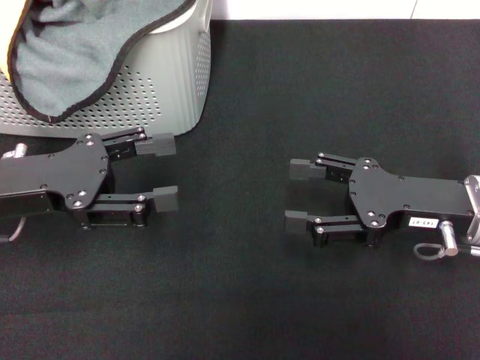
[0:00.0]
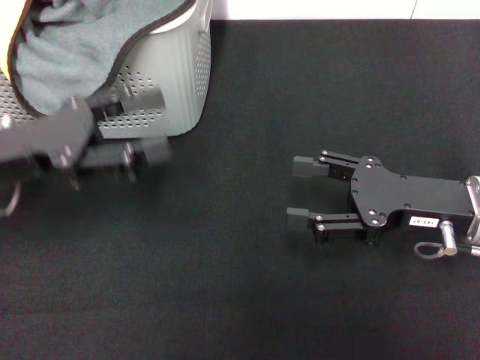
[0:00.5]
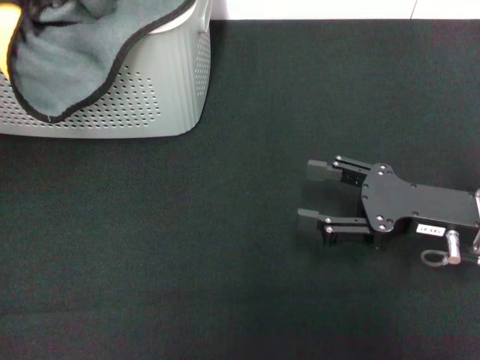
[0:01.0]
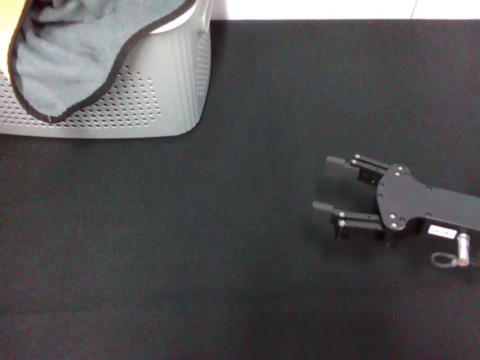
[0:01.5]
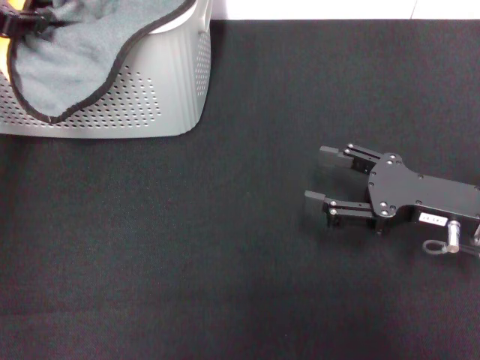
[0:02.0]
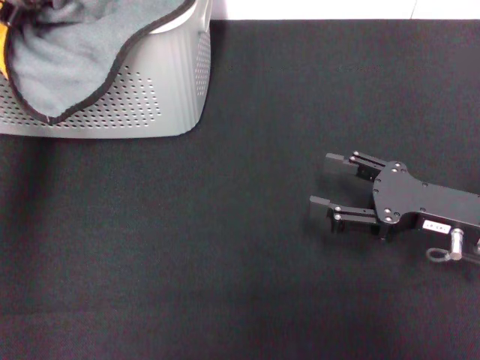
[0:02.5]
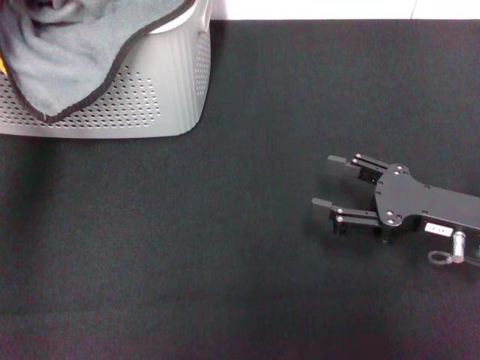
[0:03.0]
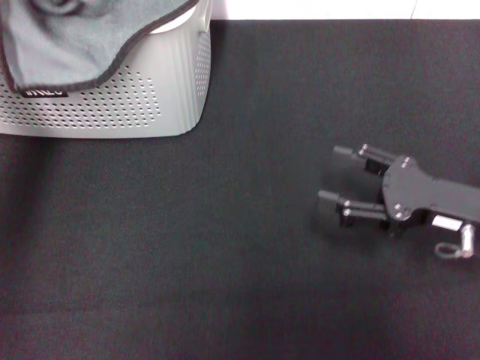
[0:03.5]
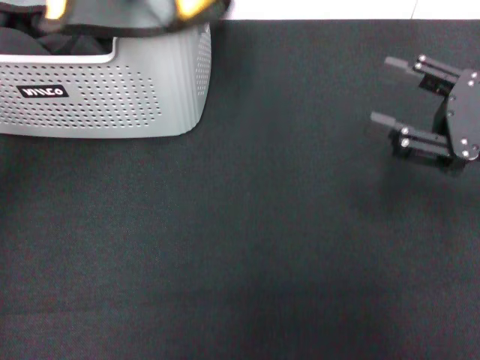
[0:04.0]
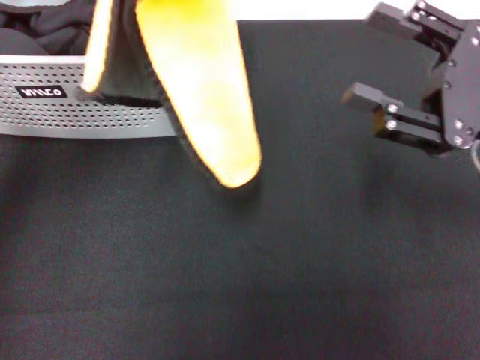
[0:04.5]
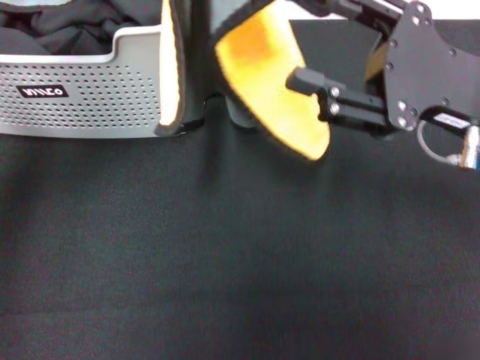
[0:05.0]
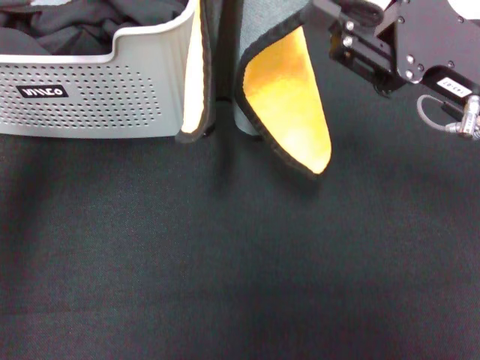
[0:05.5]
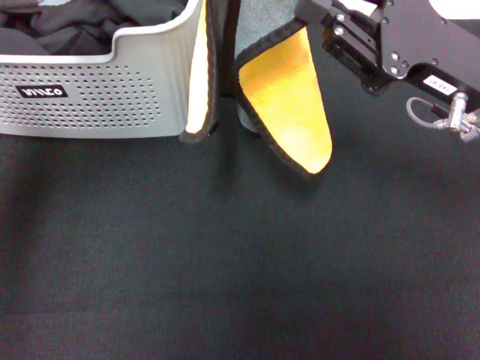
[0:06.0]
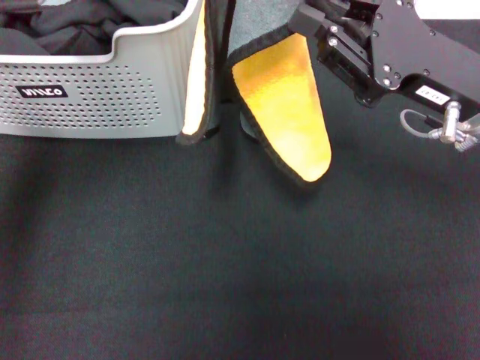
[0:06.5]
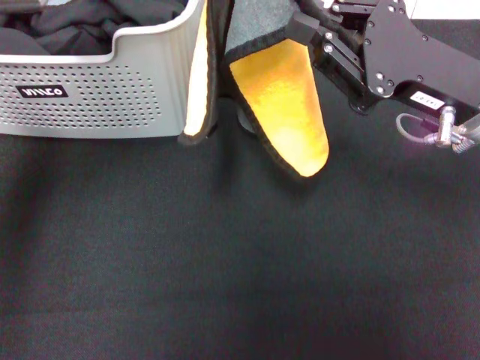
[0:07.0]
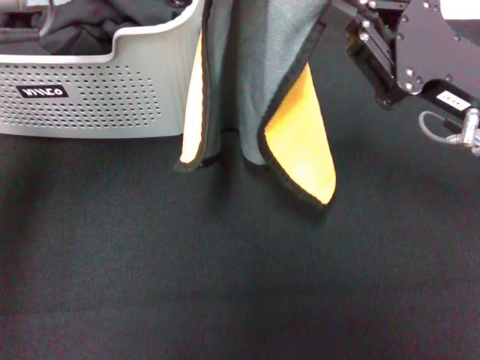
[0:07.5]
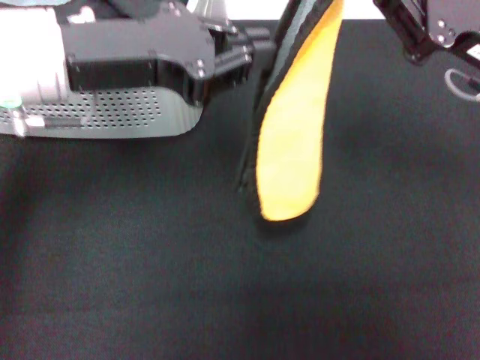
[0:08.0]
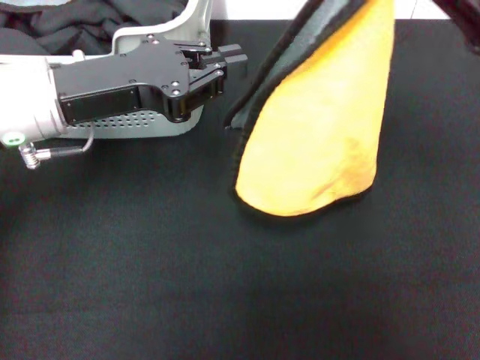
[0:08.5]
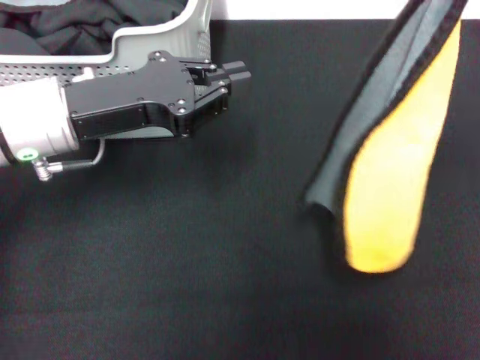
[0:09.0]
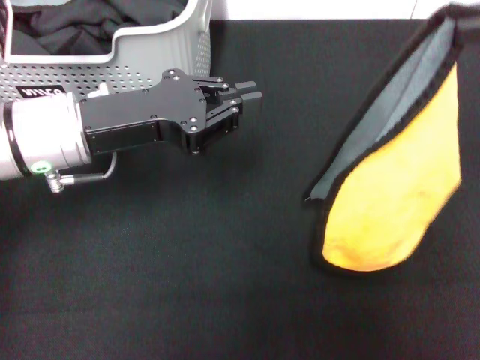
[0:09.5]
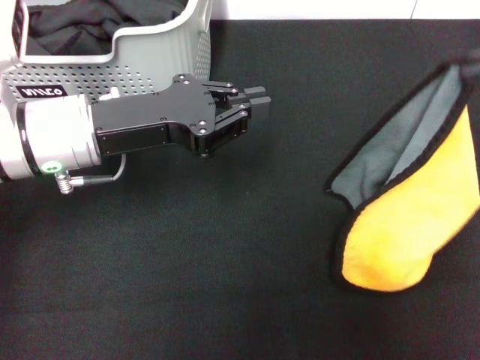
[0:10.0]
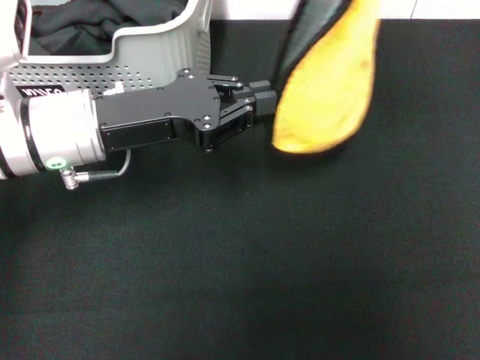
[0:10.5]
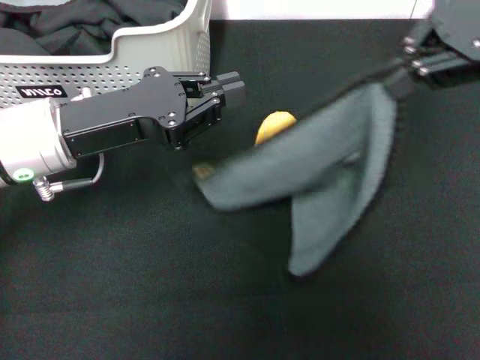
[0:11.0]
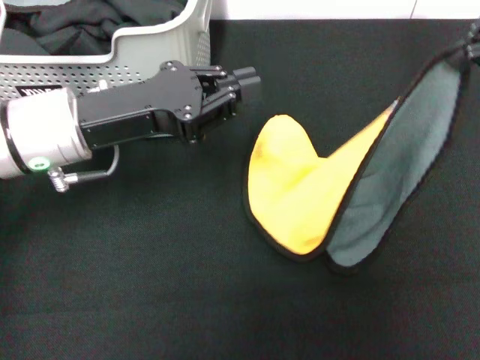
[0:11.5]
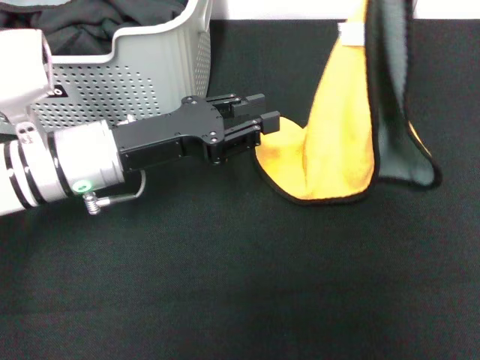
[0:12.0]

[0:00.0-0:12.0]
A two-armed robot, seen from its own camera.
Task of the whole recording: pick up the towel from the storage box and lay it flat on the black tablecloth.
Step, 0:00.0 to 0:02.5: Pick up a towel with the left gripper.
Step, 0:03.0 to 0:06.0: Spread the towel flat with the left gripper.
0:00.0 to 0:02.0: The left gripper goes approximately 15 cm upward and forward.
0:02.0 to 0:04.0: The right gripper goes about 5 cm upward. Meanwhile the left gripper heads upward, backward and to the right, covering about 15 cm, and closes.
0:04.0 to 0:06.0: The right gripper heads to the left, covering roughly 10 cm, and closes, while the left gripper is displaced to the right and downward by about 10 cm.
0:06.0 to 0:08.0: The left gripper goes about 10 cm downward. Meanwhile the right gripper closes.
0:08.0 to 0:10.0: The left gripper goes roughly 10 cm downward; the right gripper shifts approximately 15 cm upward and to the right.
0:10.0 to 0:12.0: The right gripper moves to the left, upward and forward, roughly 15 cm.

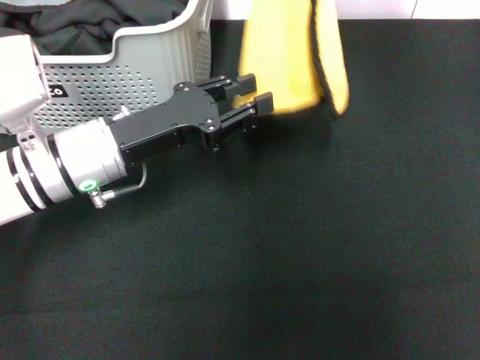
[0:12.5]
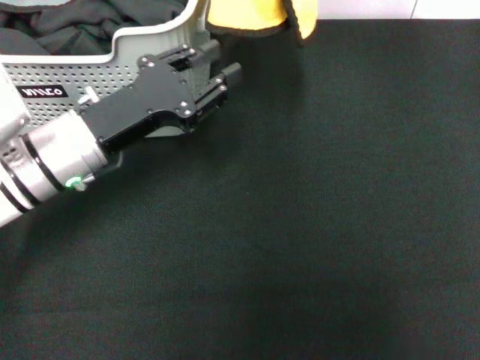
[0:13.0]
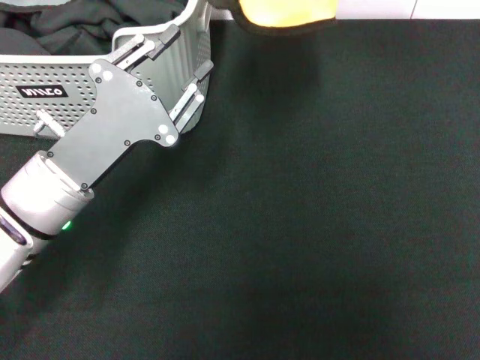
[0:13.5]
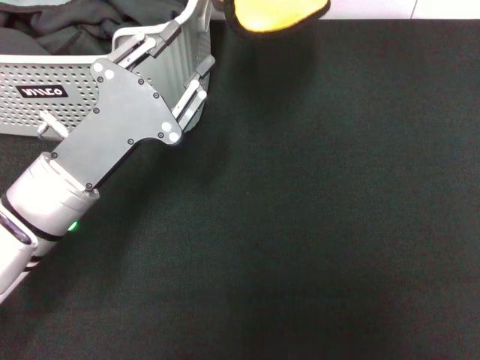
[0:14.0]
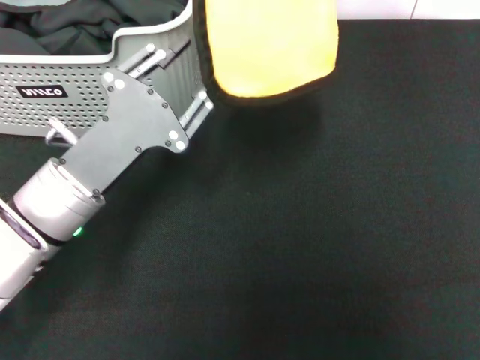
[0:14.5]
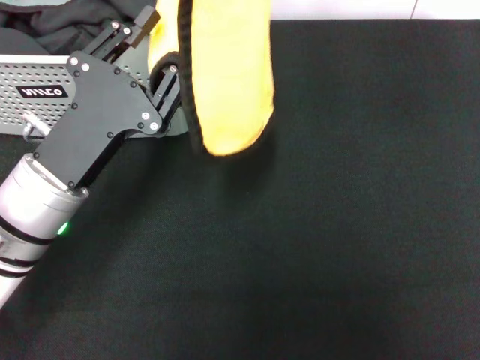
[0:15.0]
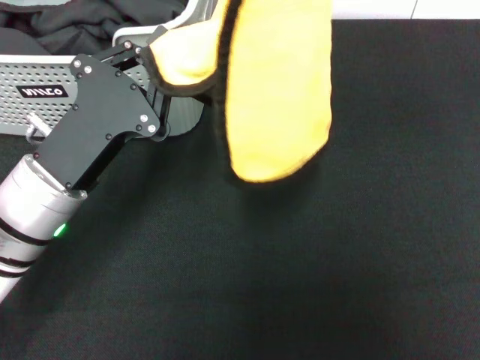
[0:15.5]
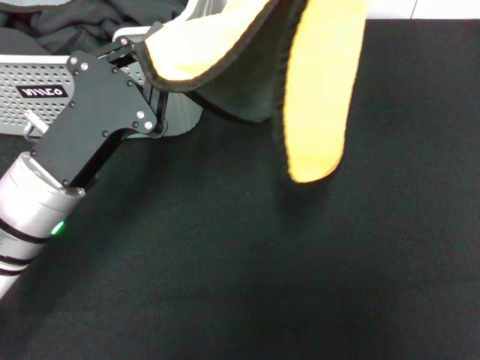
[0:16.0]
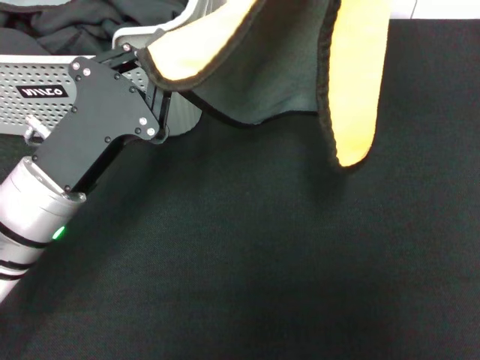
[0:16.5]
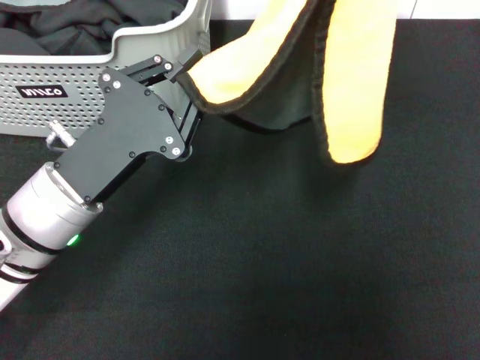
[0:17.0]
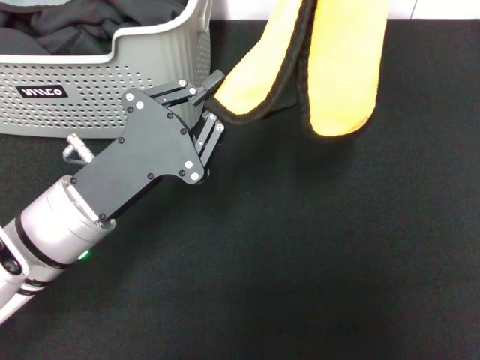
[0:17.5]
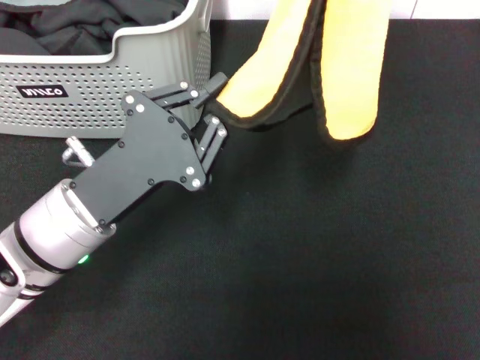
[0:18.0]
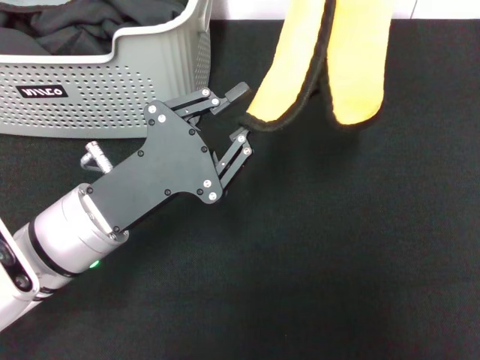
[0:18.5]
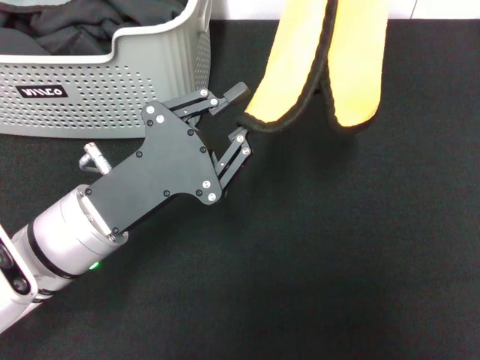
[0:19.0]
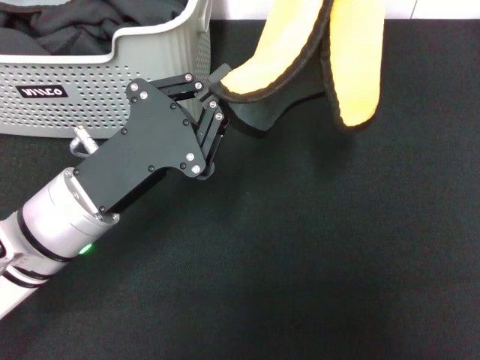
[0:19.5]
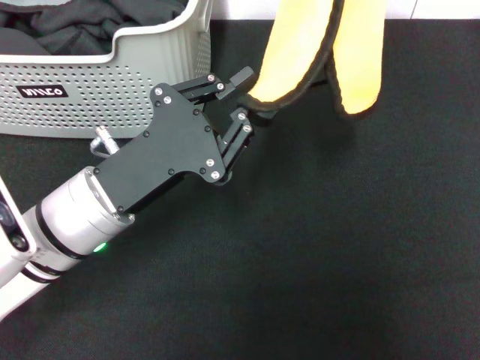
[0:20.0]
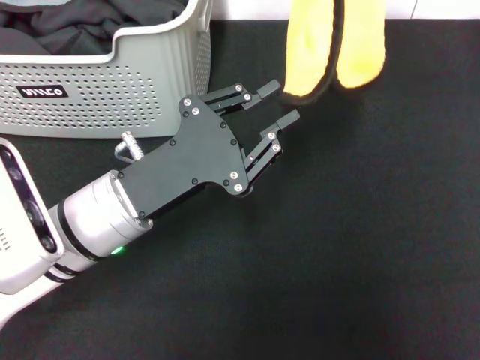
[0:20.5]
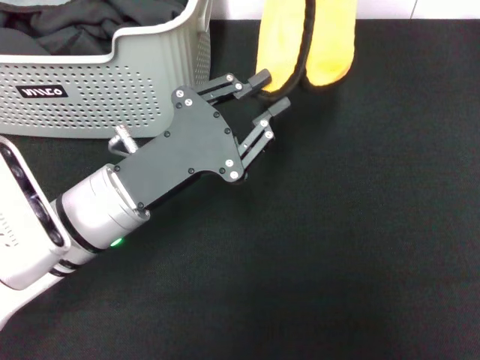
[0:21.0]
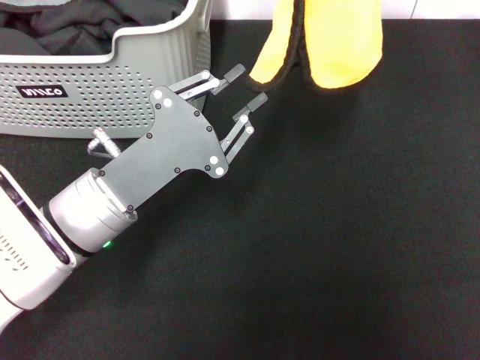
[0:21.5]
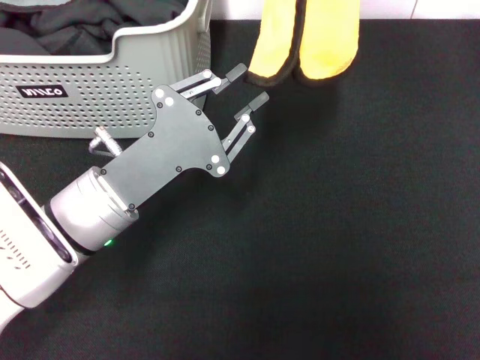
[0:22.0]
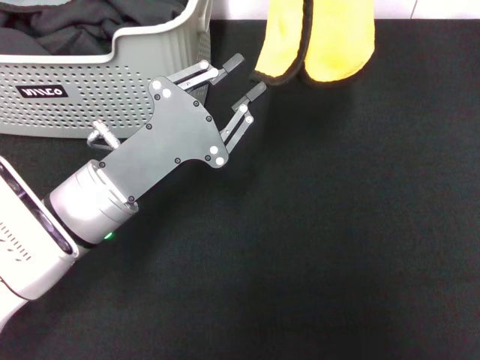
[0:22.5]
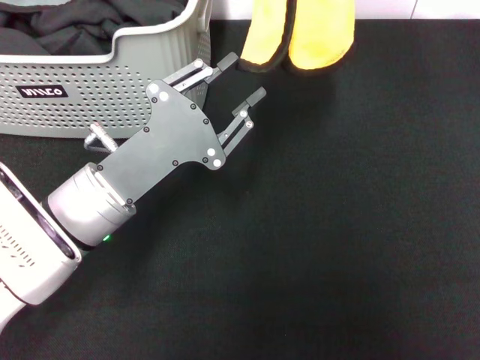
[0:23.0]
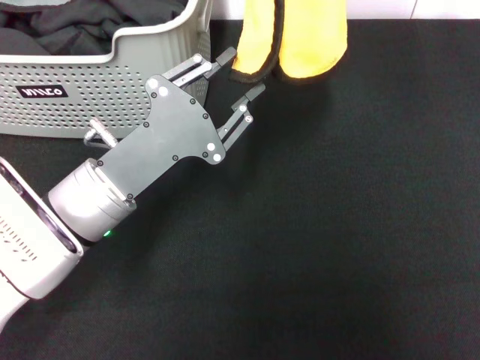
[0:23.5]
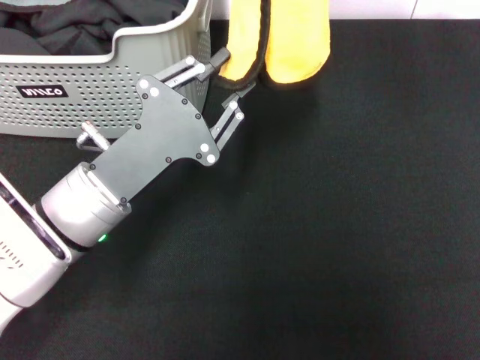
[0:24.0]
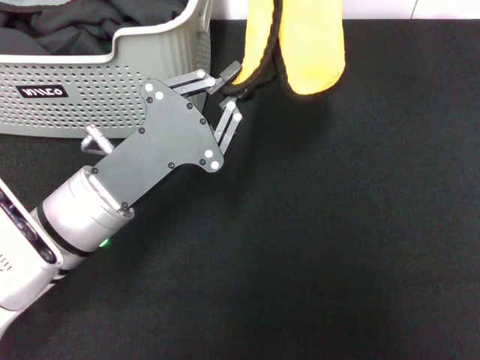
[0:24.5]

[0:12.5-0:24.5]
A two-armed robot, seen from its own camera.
Task of the whole recording: pick up the towel from the storage box and lay it flat on the black tablecloth.
0:12.5 to 0:14.5: The left gripper is displaced backward by approximately 5 cm.
0:14.5 to 0:16.5: The left gripper closes its fingers, while the right gripper shifts some 10 cm to the right and downward.
0:18.5 to 0:22.5: The grippers move only a little.
0:22.5 to 0:24.5: The grippers make only small movements.

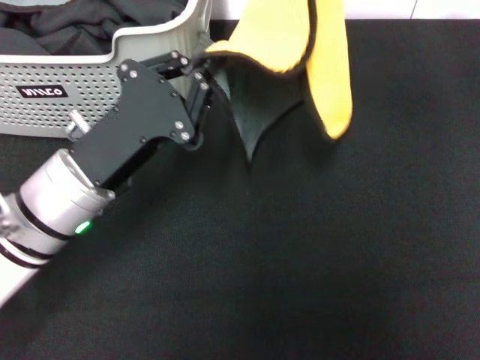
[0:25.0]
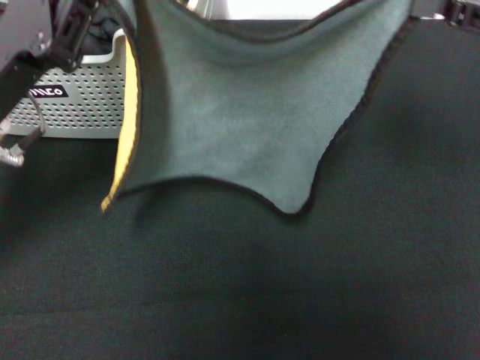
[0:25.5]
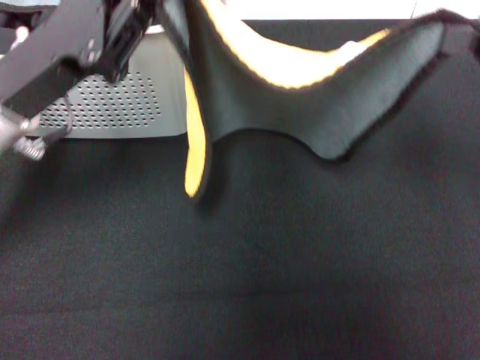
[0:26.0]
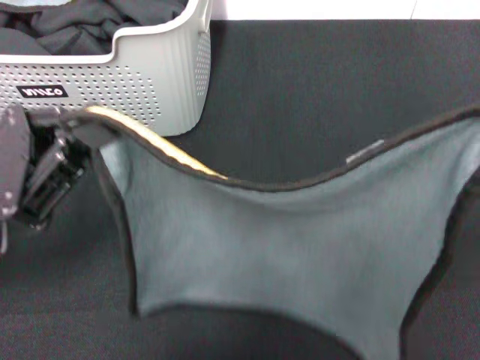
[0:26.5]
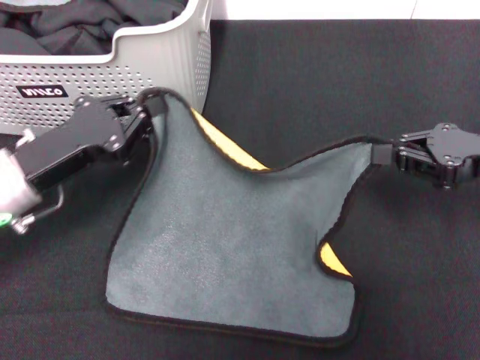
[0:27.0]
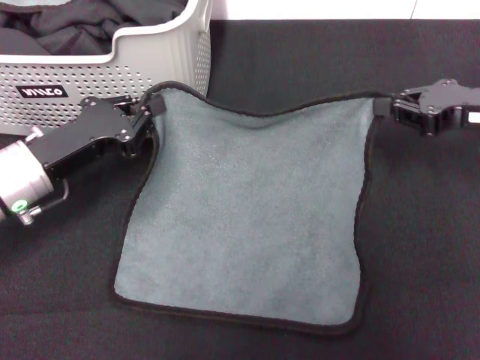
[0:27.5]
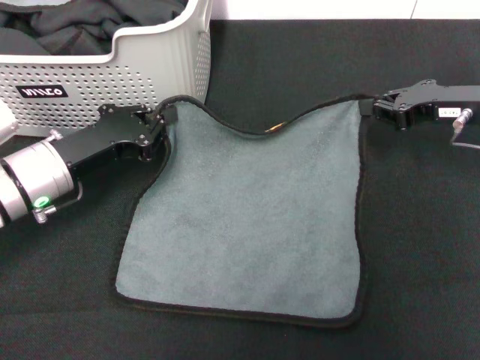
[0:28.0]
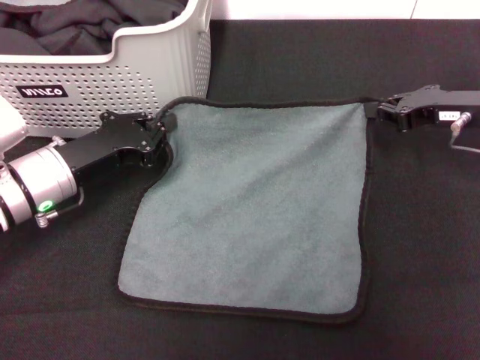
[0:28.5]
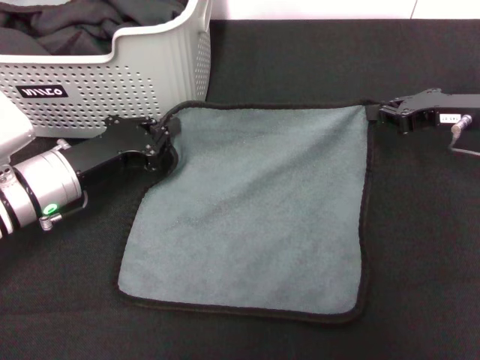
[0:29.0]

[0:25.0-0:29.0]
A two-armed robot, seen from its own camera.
Task of the whole recording: pick up the towel from the storage box and lay it flat on the black tablecloth.
0:25.0 to 0:27.0: The right gripper is displaced downward, backward and to the right by roughly 15 cm, while the left gripper travels to the left by some 10 cm.
0:27.0 to 0:29.0: The right gripper heads forward, covering roughly 5 cm.
